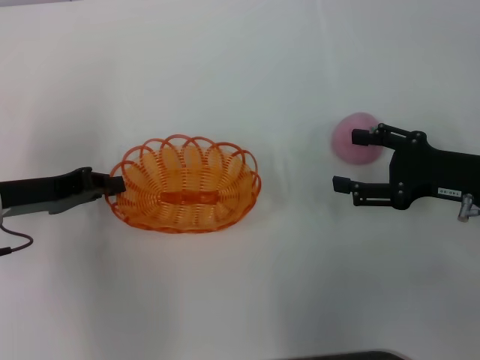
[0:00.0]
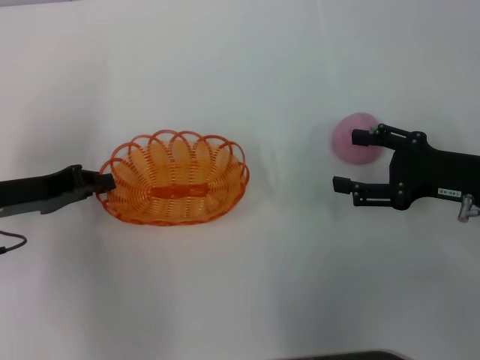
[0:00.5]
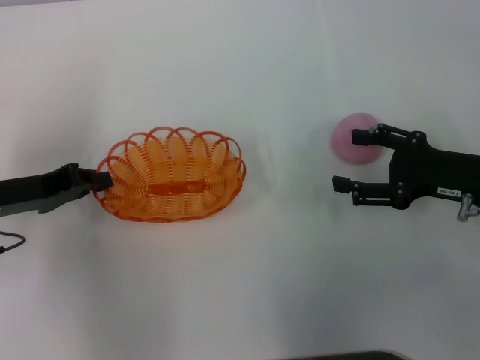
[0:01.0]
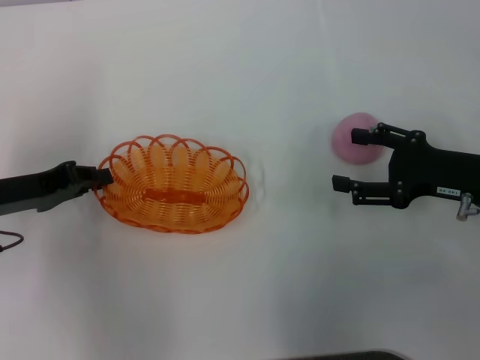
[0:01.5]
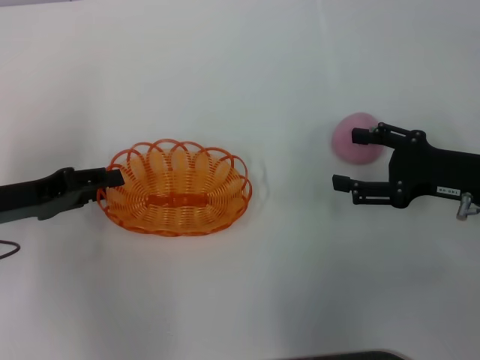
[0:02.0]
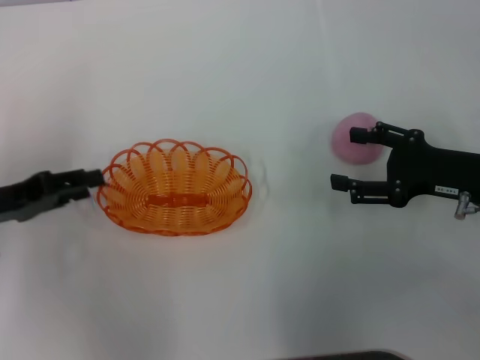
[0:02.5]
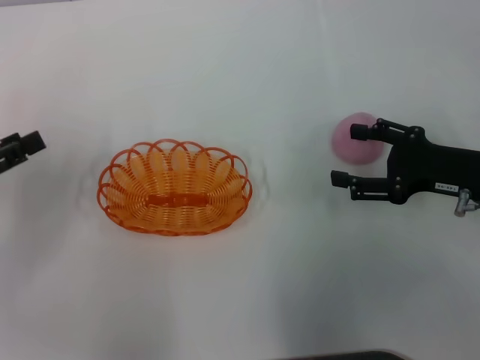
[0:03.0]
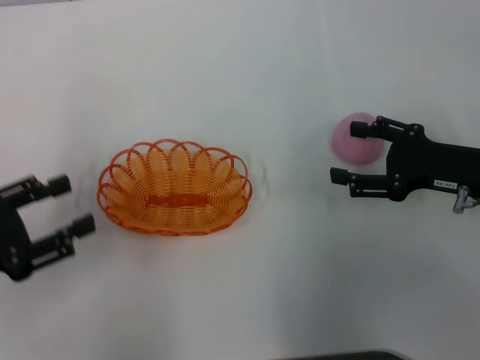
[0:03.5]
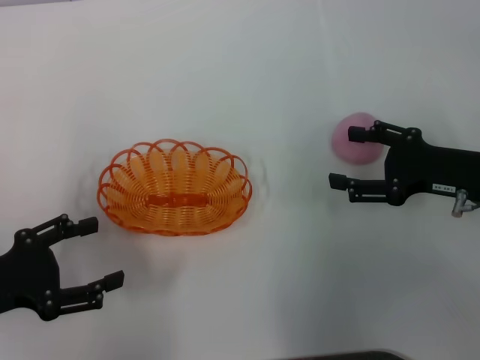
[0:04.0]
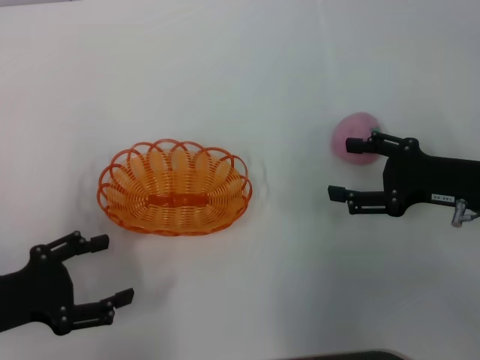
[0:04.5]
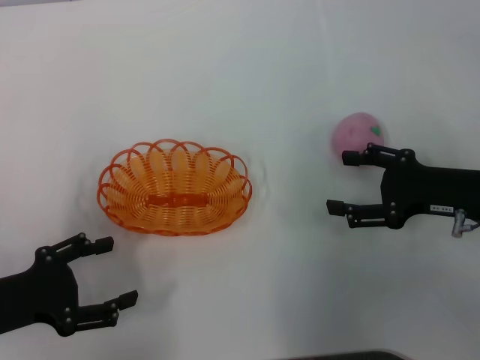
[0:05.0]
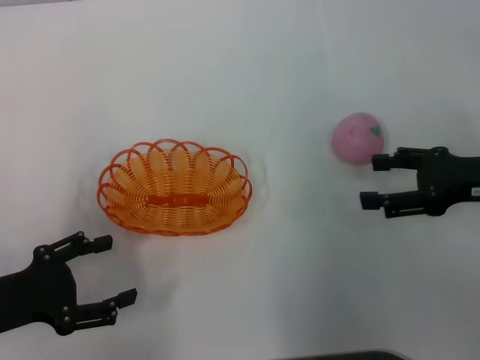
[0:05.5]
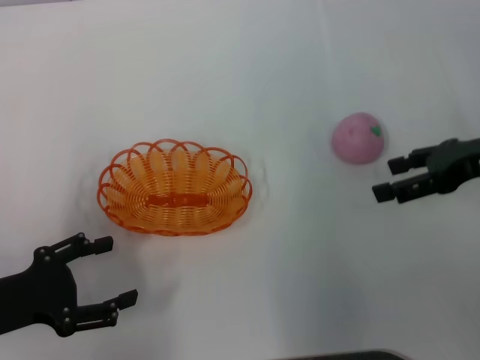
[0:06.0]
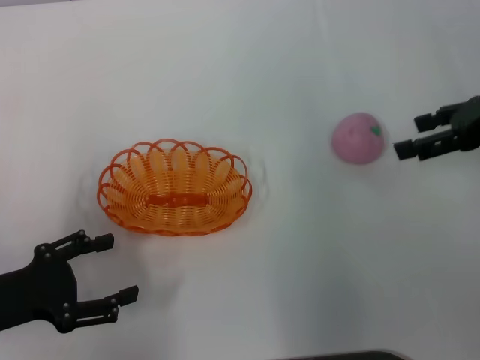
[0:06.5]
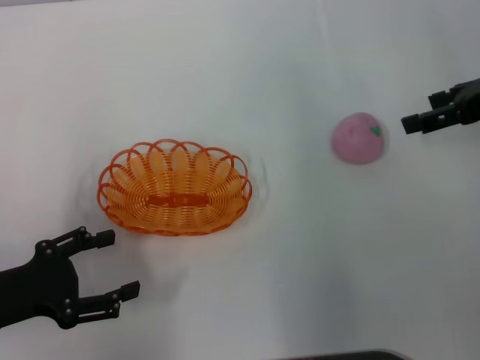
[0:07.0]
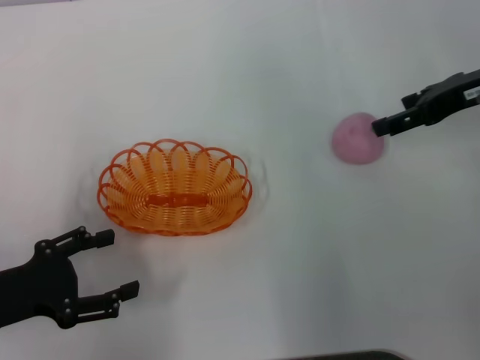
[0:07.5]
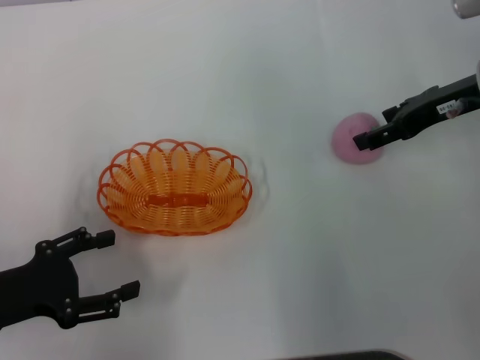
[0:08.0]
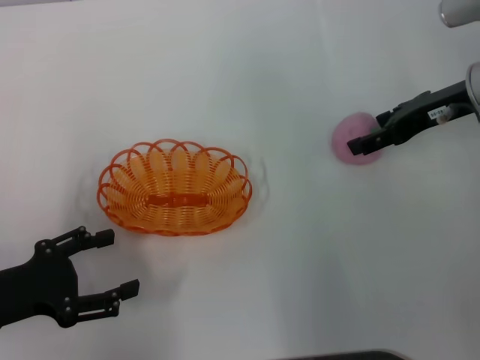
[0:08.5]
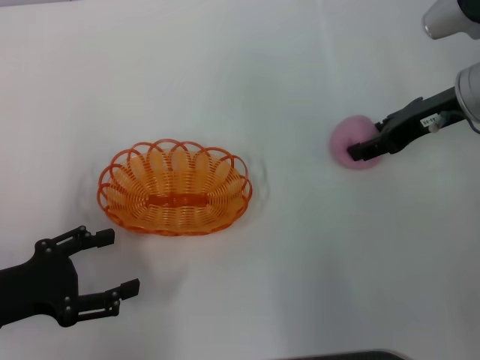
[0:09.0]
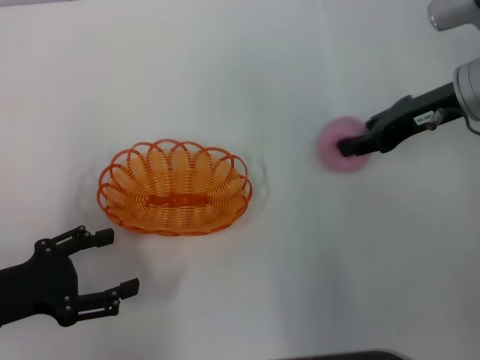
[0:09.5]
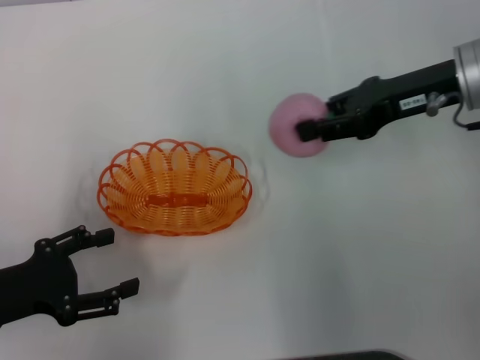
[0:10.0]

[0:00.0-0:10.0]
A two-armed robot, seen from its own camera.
Step, 0:00.0 to 0:04.0: Place the basket in the center of view with the left gripper.
Step, 0:04.5 to 0:10.0: Pick up the peach with the right gripper.
0:00.0 to 0:02.0: The grippers make only small movements.
0:02.0 to 0:04.0: The left gripper heads backward, covering about 10 cm, and opens its fingers.
0:04.0 to 0:06.0: The right gripper shifts about 5 cm upward.
0:06.0 to 0:08.0: The right gripper shifts roughly 5 cm forward.
0:08.0 to 0:10.0: The right gripper closes.

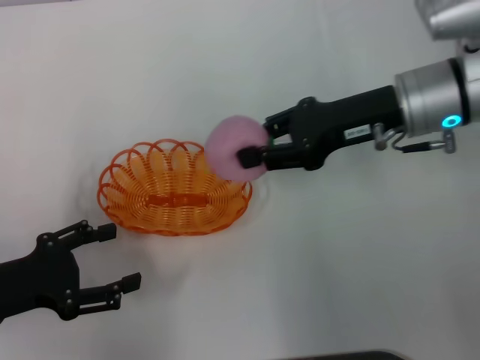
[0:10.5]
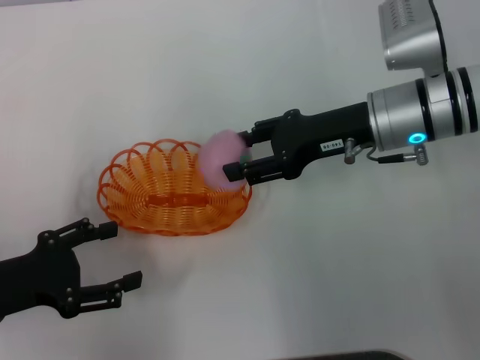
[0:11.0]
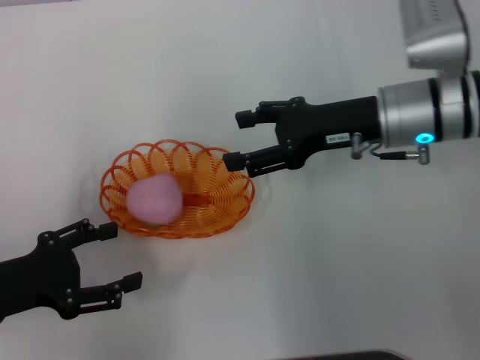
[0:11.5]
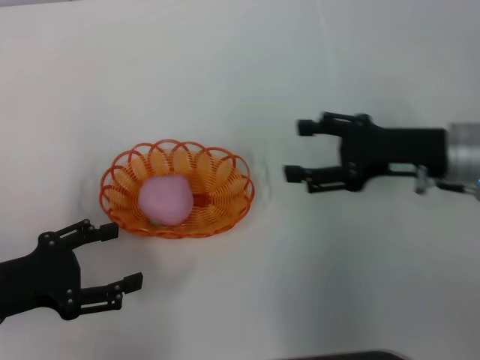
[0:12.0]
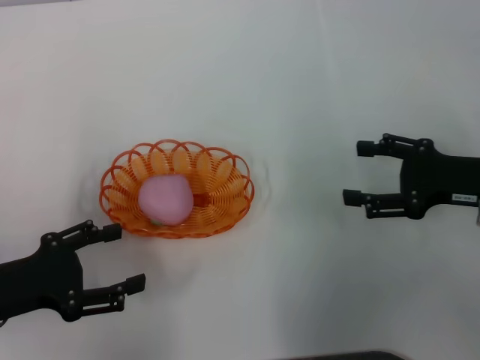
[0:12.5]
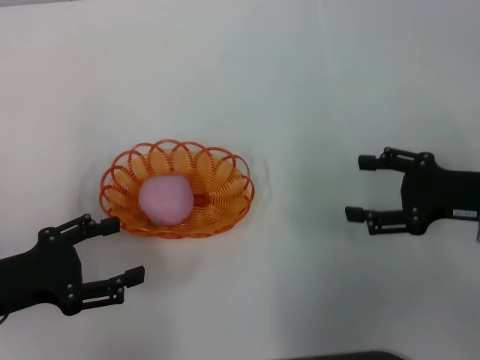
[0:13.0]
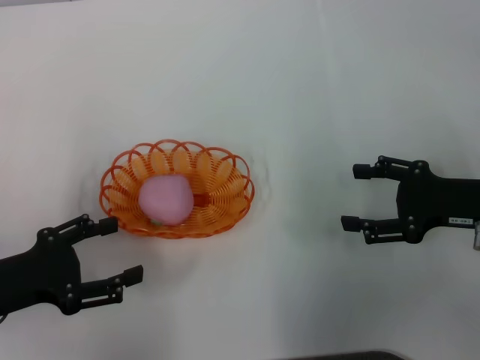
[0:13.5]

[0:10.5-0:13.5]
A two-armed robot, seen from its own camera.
Step, 0:10.5 to 0:12.0: Place the peach into the basket with the right gripper.
0:10.5 to 0:12.0: The right gripper heads to the right, covering about 5 cm, and opens up.
0:12.0 to 0:13.5: The right gripper heads to the right, covering roughly 5 cm.
